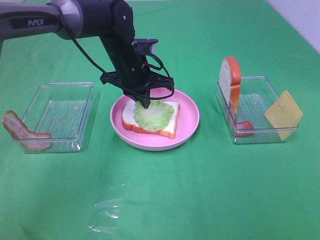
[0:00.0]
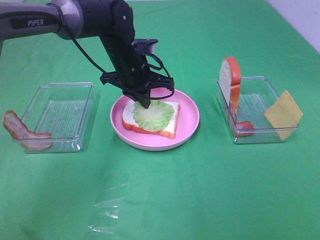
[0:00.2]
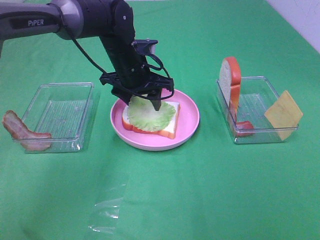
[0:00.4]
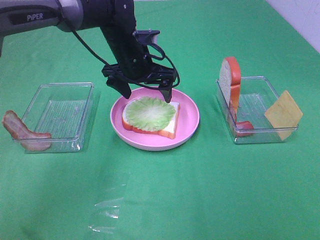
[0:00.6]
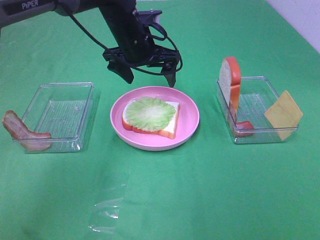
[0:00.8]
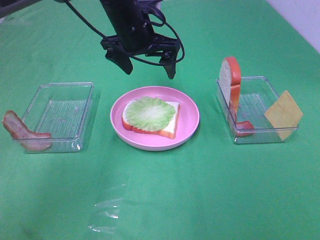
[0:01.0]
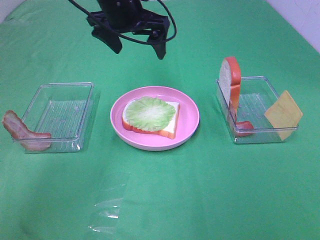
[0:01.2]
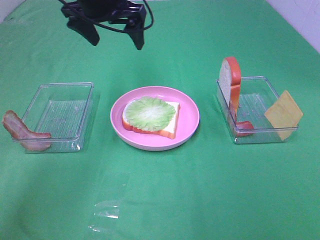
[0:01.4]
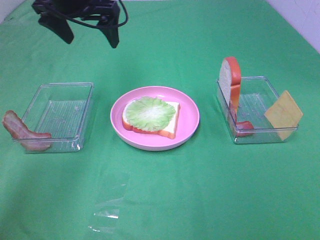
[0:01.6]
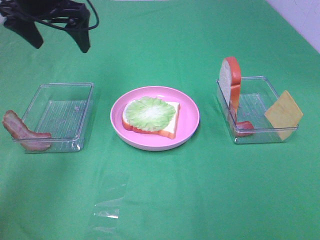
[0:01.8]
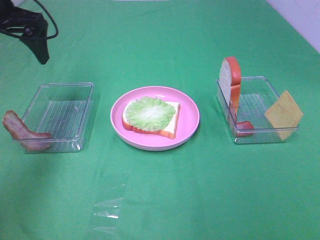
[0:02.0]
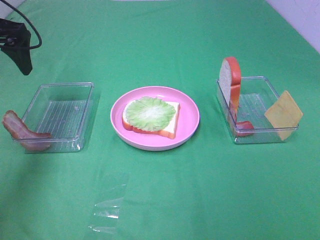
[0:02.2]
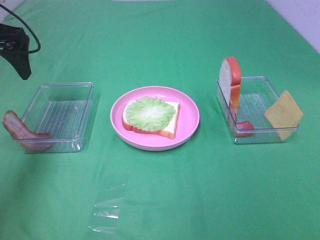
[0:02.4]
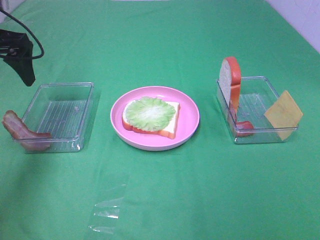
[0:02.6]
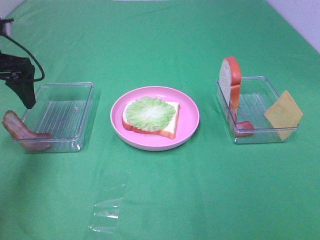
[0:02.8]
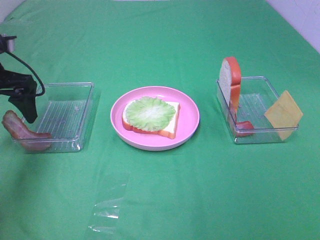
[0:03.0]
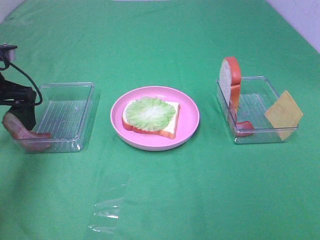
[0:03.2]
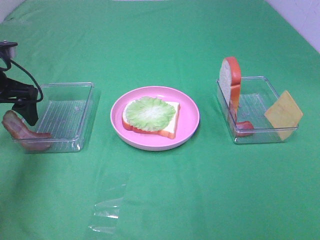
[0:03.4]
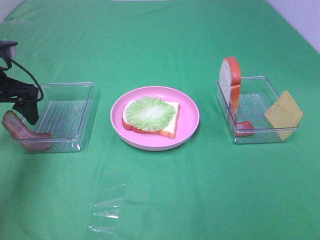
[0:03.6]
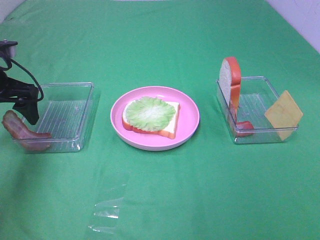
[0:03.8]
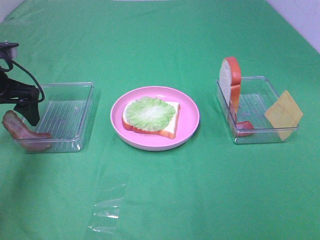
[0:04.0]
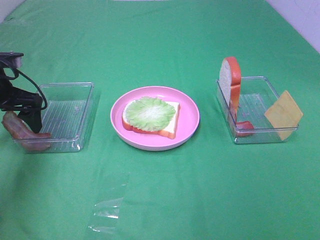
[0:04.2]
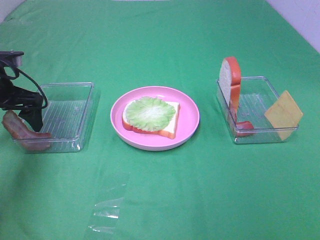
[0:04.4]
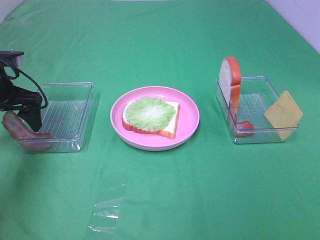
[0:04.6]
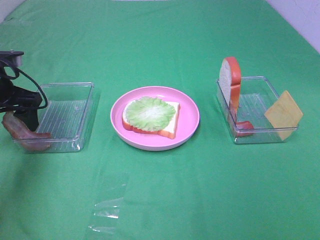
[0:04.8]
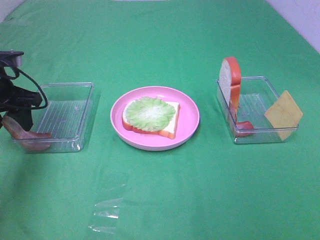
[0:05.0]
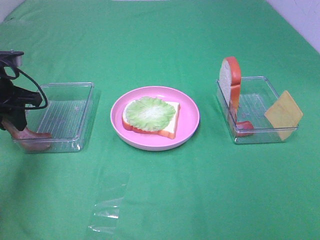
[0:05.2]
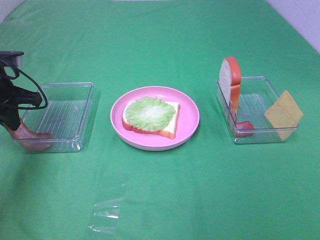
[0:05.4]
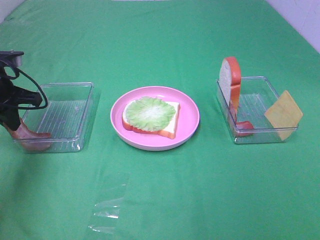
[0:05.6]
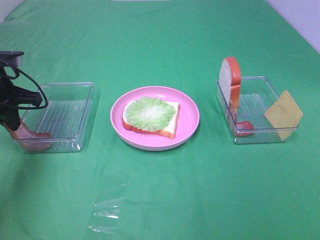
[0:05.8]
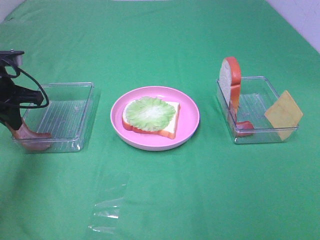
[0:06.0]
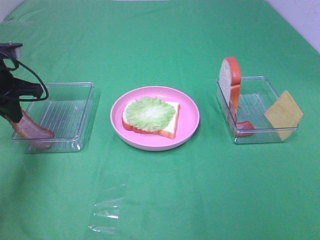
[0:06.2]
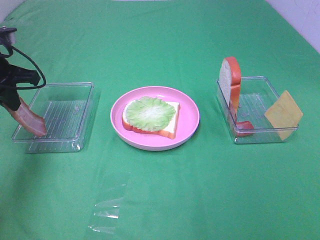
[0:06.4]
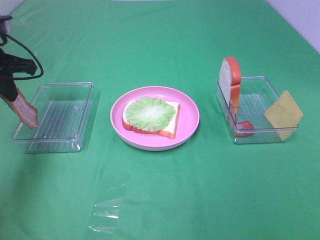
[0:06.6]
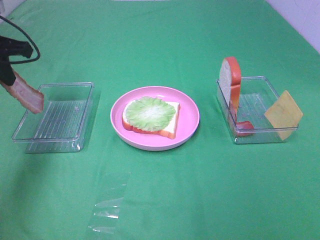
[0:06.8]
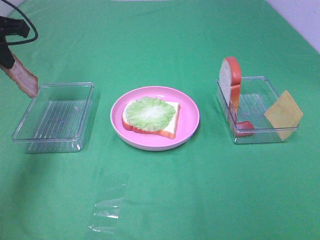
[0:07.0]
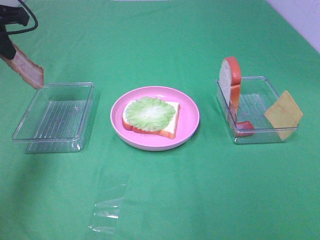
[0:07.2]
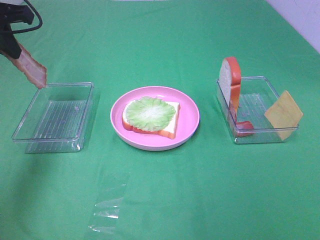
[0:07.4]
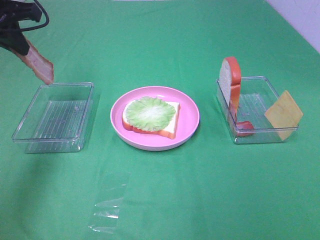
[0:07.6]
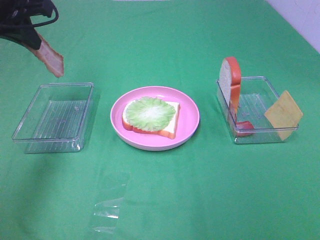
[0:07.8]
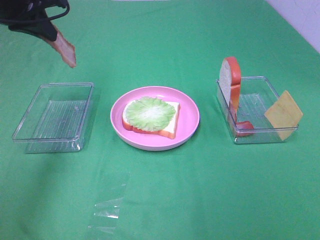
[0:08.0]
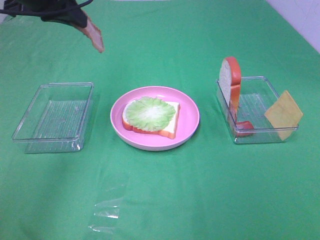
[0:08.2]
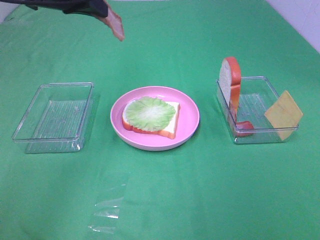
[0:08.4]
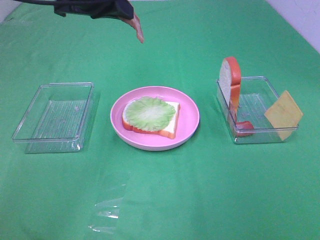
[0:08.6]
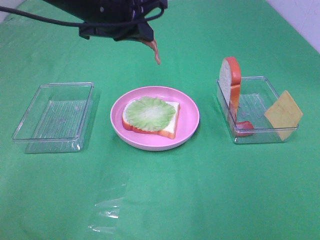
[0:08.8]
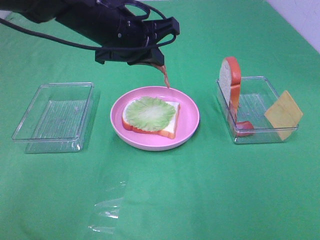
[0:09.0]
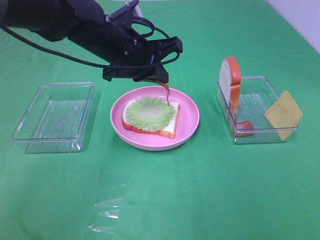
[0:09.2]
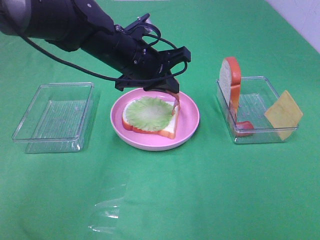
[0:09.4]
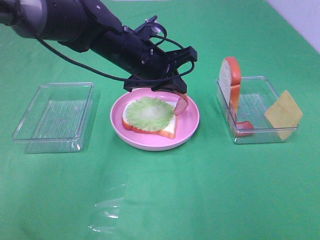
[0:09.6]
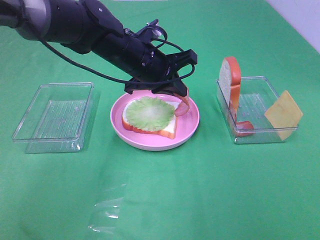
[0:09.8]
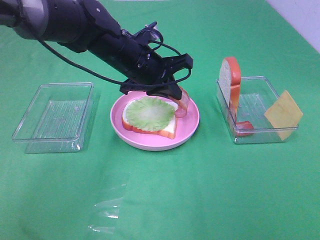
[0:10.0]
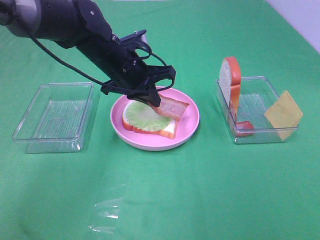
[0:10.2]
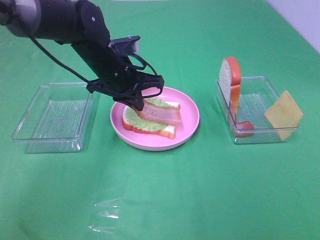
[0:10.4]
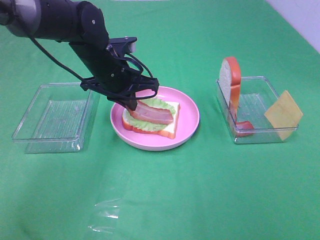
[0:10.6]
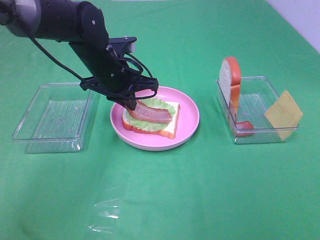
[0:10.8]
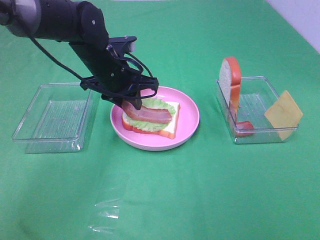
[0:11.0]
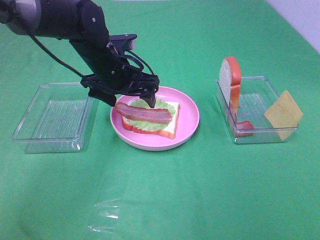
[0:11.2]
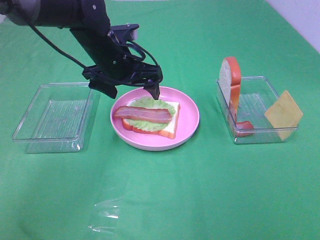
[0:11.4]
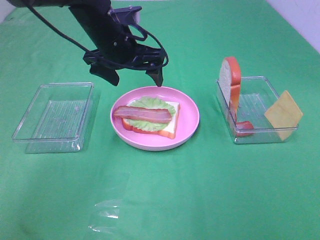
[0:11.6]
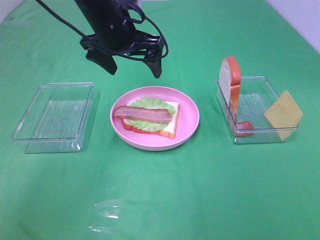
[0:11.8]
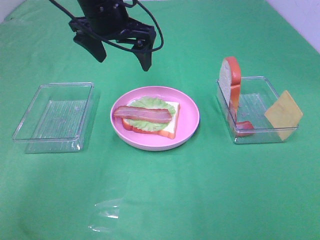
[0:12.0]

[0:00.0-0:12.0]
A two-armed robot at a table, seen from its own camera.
Task of the whole recording: Make sandwiches.
Step, 0:00.6 to 0:05.6: Left hand:grab the bacon.
Step, 0:05.8 to 0:11.2: Left hand:place bacon on lettuce slice.
0:00.0 to 0:01.6: The left gripper moves upward and to the left, about 20 cm, and opens.
0:01.6 to 0:03.0: The left gripper goes roughly 20 cm to the left, downward and backward.
0:03.0 to 0:04.4: There are only small adjustments of the grippers.
0:04.4 to 0:06.0: The left gripper closes up.
0:06.0 to 0:07.6: The left gripper shifts about 15 cm upward.
0:07.6 to 0:09.0: The left gripper shifts about 20 cm to the right.
0:09.0 to 0:10.4: The left gripper moves downward, roughly 10 cm.
0:10.4 to 0:12.0: The left gripper moves upward, roughly 10 cm, and opens its fingers.

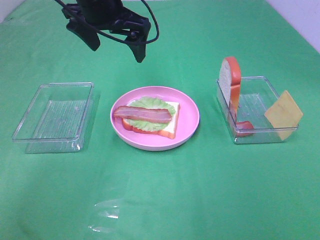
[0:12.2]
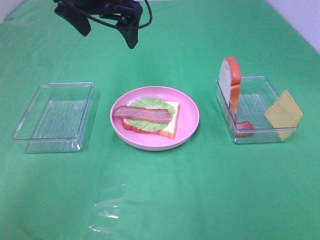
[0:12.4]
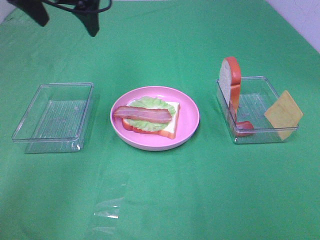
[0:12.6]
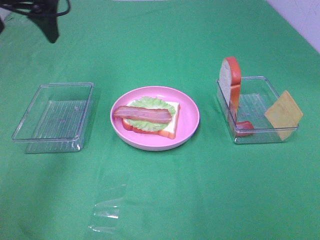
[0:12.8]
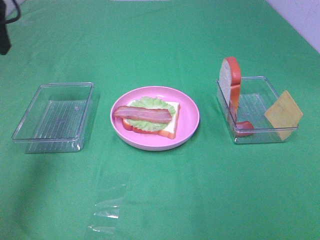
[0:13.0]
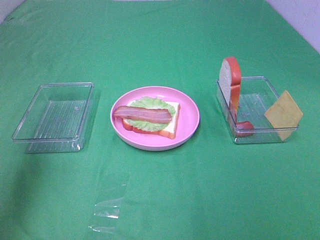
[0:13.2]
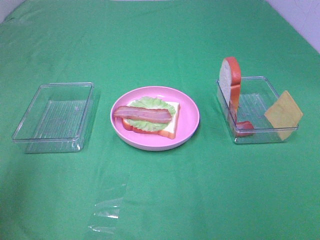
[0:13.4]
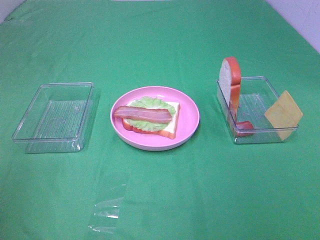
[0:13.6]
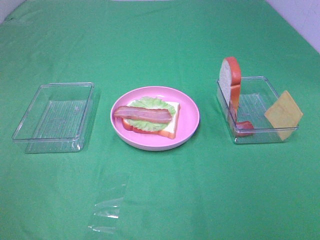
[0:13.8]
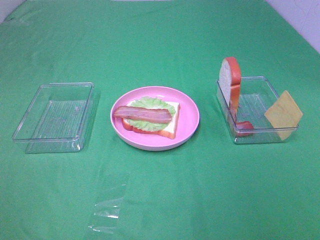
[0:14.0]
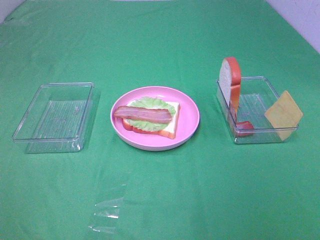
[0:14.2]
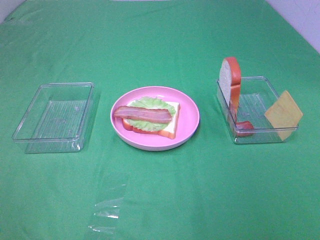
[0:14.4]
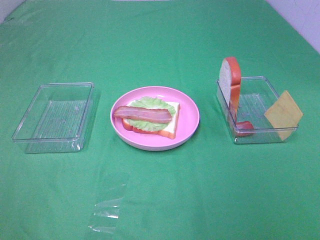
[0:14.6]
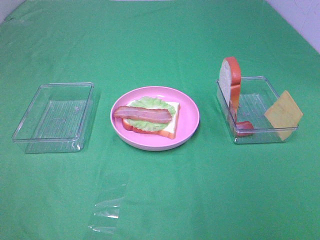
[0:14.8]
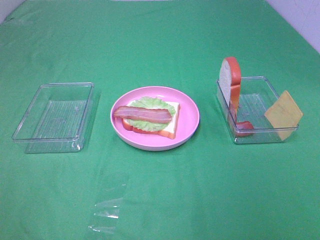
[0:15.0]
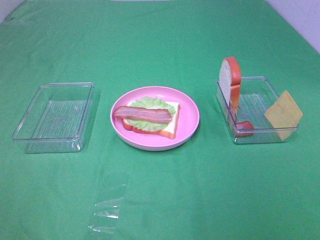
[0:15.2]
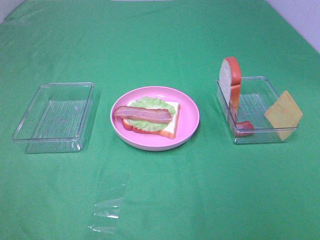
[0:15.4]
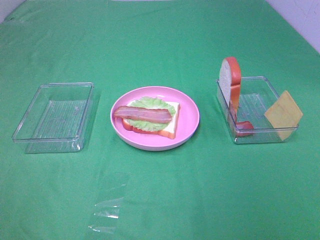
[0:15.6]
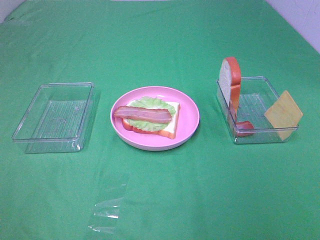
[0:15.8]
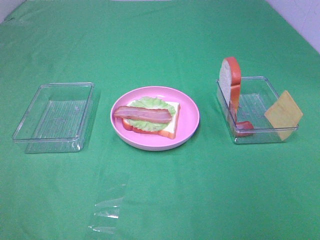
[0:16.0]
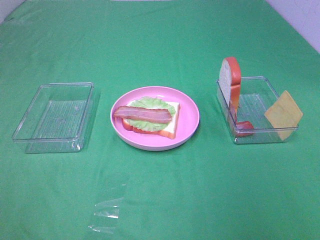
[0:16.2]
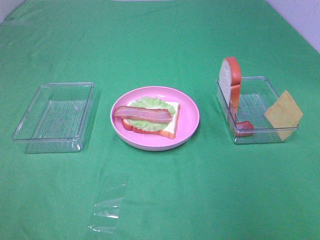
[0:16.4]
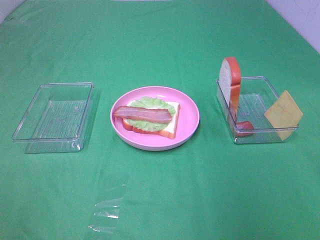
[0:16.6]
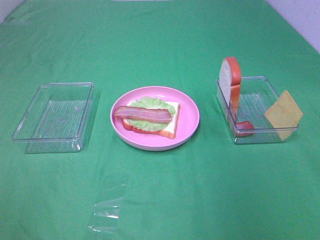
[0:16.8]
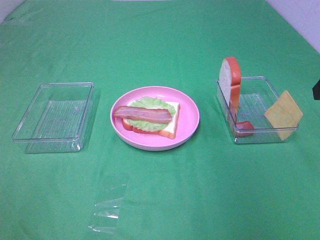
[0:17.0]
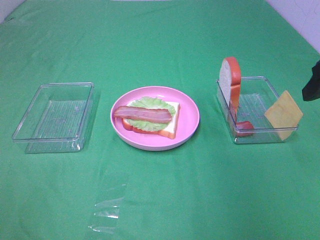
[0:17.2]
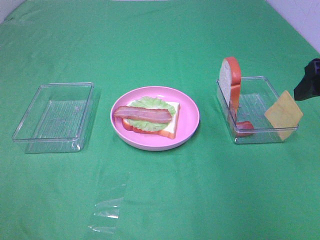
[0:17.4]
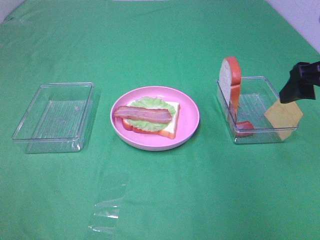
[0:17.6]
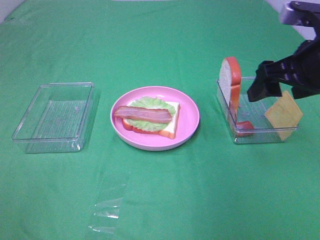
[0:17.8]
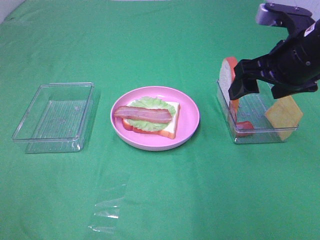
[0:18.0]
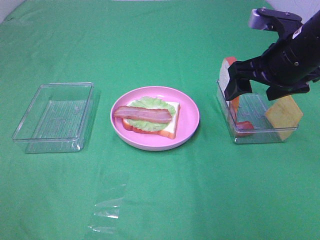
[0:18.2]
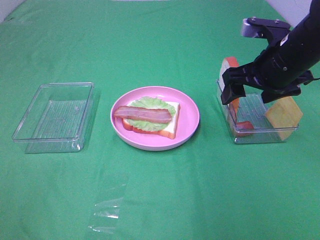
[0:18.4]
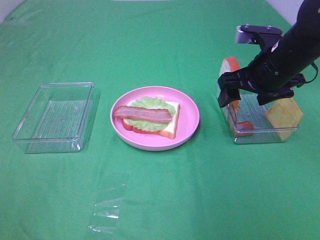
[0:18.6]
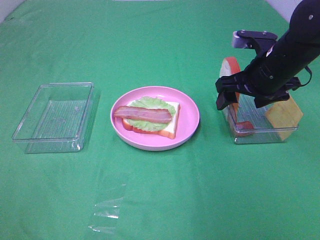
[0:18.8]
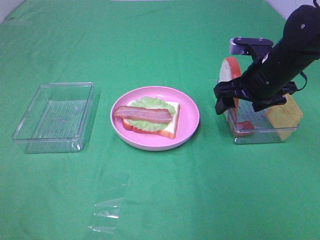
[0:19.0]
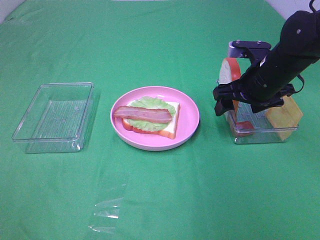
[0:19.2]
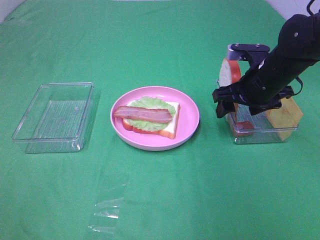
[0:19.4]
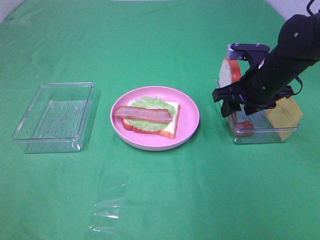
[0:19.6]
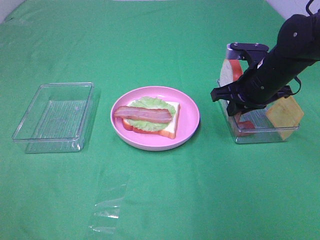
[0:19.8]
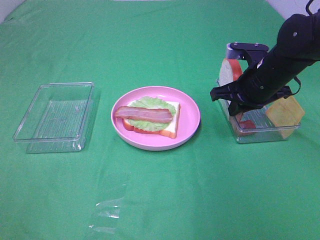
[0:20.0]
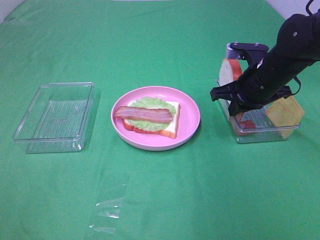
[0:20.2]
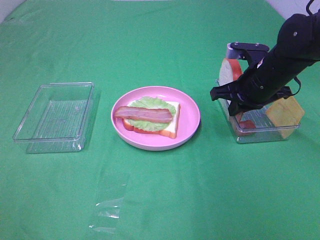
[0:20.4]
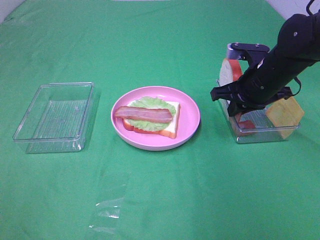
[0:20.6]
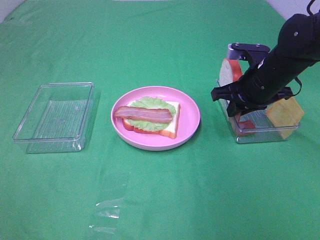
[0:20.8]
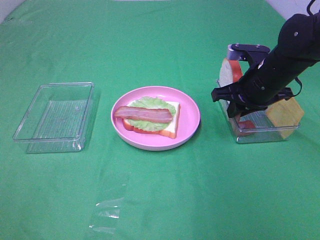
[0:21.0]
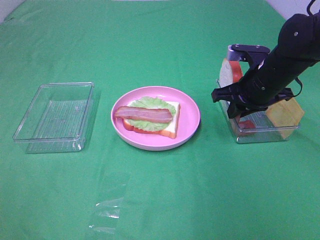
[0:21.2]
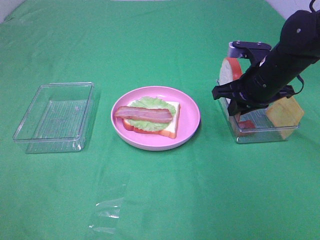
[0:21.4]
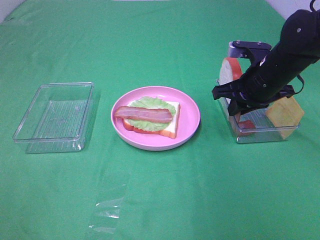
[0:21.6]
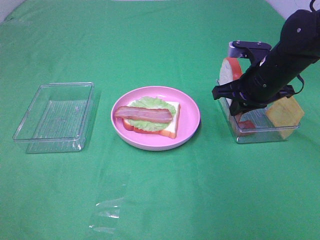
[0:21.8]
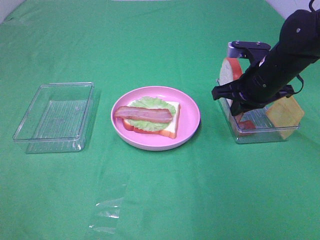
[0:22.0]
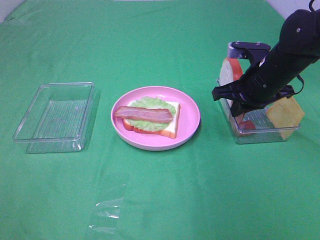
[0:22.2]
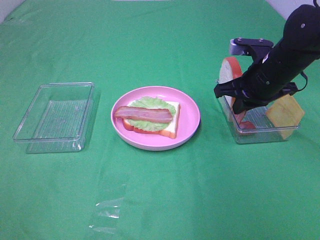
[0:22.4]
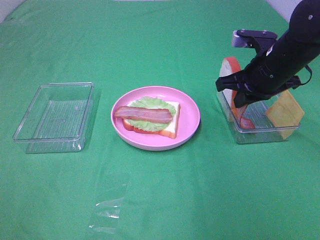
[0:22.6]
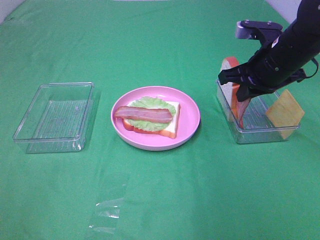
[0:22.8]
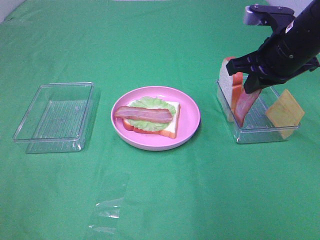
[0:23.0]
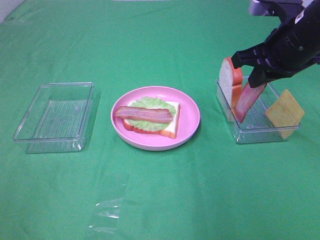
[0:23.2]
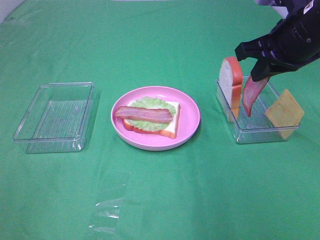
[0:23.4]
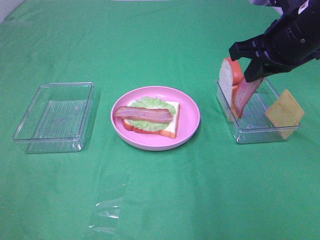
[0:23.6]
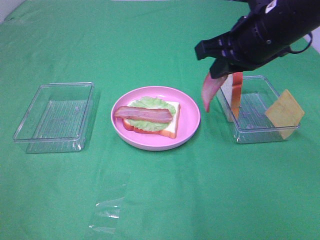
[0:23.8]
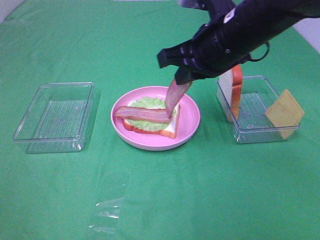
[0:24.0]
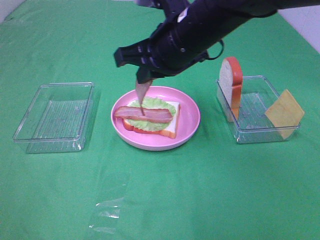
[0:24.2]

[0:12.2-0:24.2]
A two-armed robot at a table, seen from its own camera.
Task of the whole recording: Make sandwiches.
Step, 0:12.2 to 0:20.2: Right hand:grab the bacon.
0:12.2 to 0:13.8: The left gripper goes approximately 50 cm backward and to the left.
0:16.6 to 0:18.2: The right gripper is displaced forward, downward and to the left by approximately 20 cm.
0:18.2 to 0:19.8: The right gripper is displaced downward by about 10 cm, and closes its fingers.
0:19.8 to 0:21.2: Both grippers stay about where they are.
0:21.2 to 0:22.6: There are only small adjustments of the grippers.
0:22.6 to 0:24.2: The right gripper goes approximately 15 cm to the left and upward.
